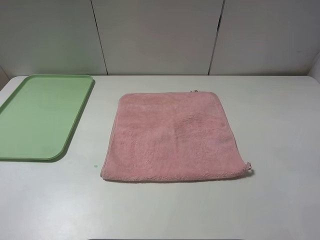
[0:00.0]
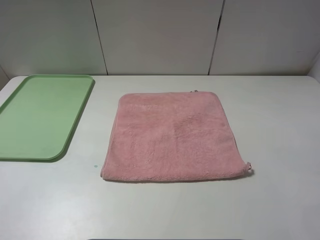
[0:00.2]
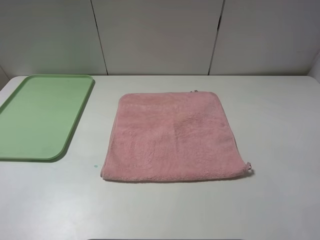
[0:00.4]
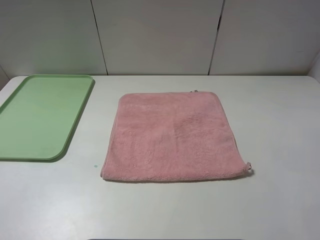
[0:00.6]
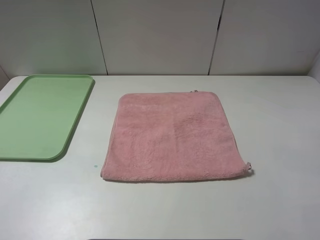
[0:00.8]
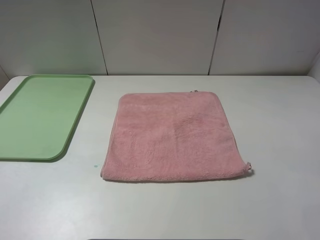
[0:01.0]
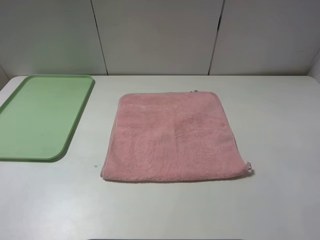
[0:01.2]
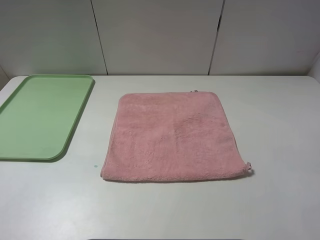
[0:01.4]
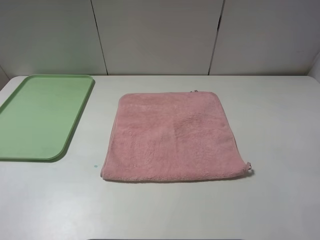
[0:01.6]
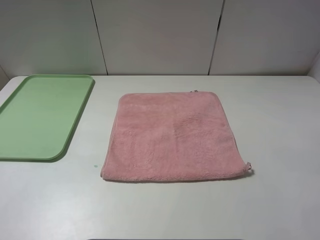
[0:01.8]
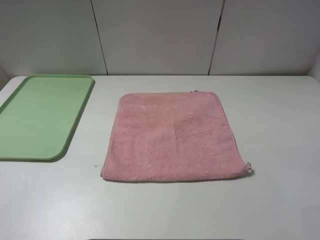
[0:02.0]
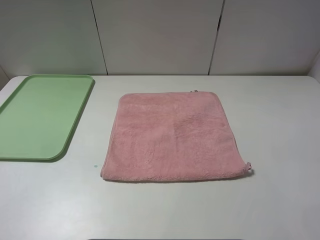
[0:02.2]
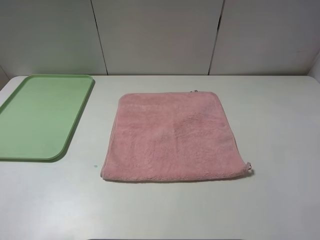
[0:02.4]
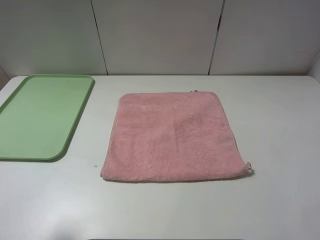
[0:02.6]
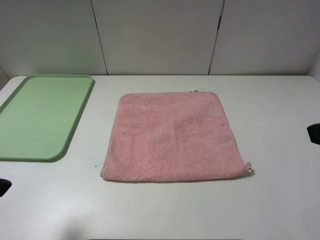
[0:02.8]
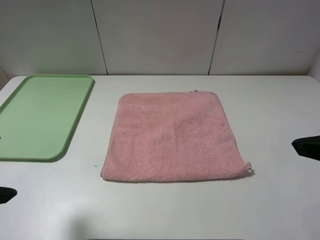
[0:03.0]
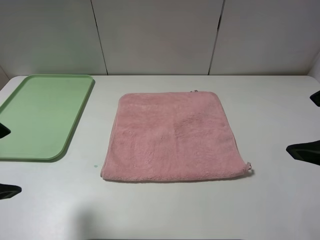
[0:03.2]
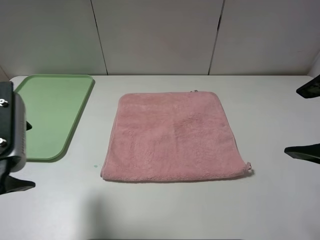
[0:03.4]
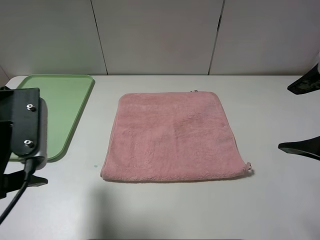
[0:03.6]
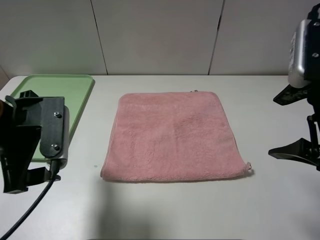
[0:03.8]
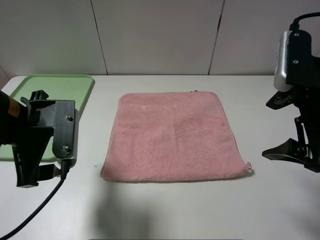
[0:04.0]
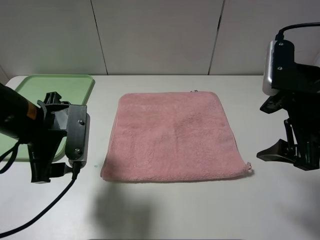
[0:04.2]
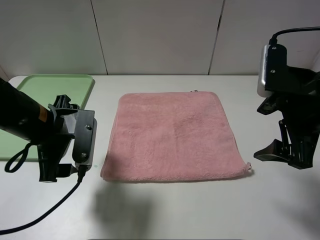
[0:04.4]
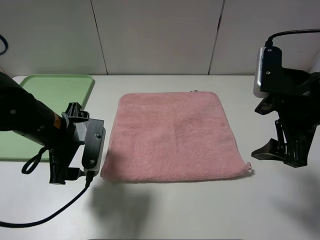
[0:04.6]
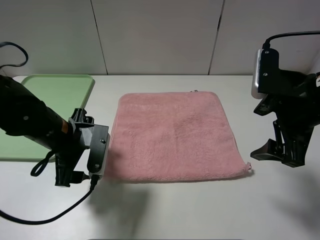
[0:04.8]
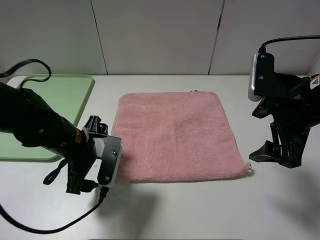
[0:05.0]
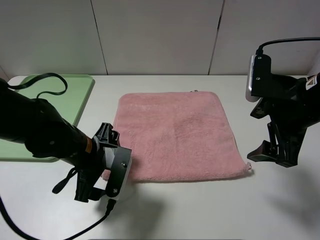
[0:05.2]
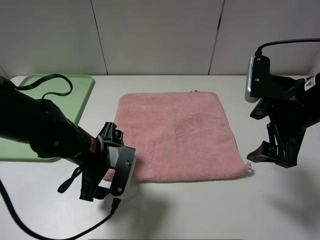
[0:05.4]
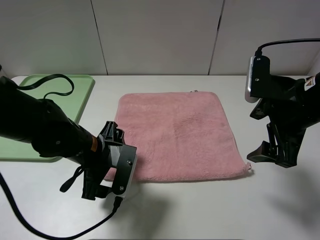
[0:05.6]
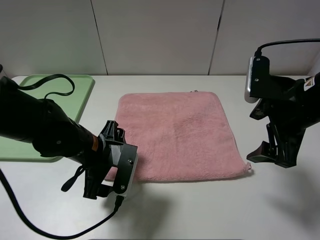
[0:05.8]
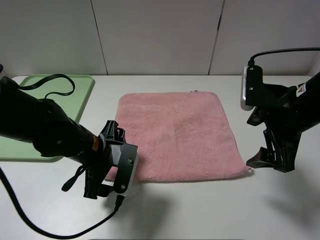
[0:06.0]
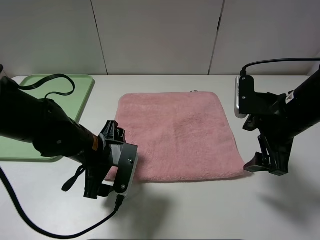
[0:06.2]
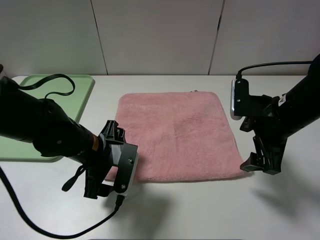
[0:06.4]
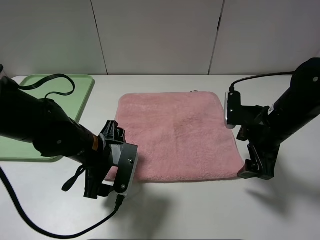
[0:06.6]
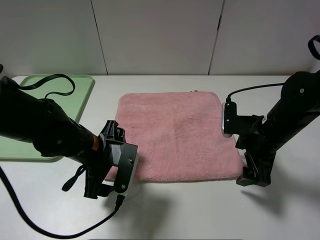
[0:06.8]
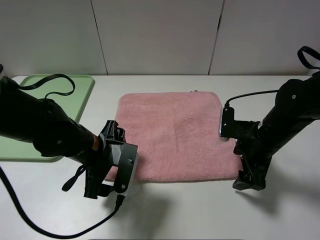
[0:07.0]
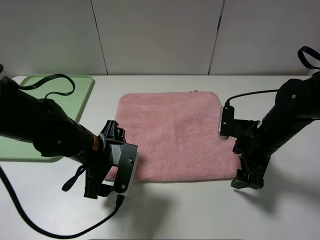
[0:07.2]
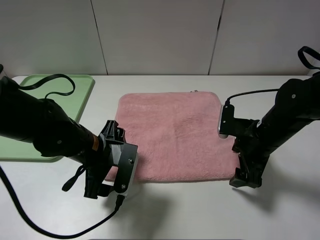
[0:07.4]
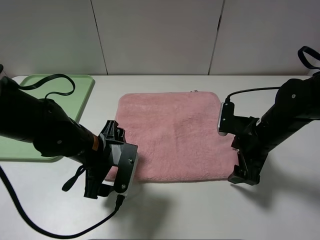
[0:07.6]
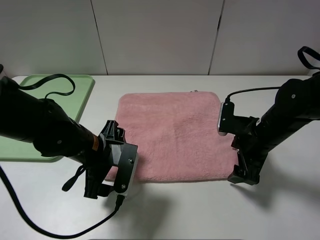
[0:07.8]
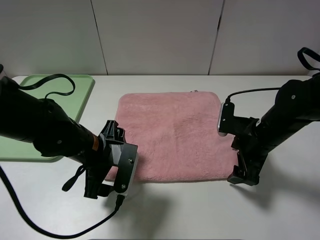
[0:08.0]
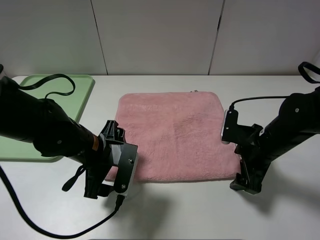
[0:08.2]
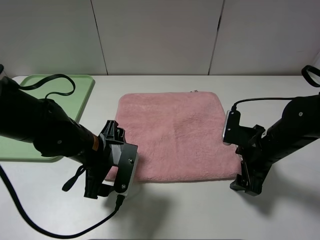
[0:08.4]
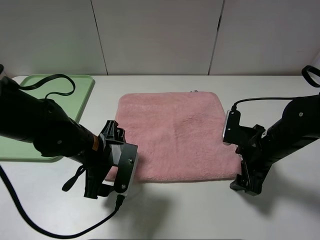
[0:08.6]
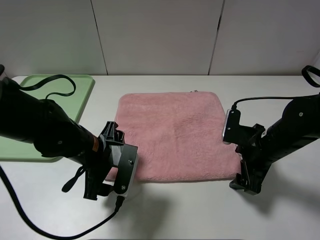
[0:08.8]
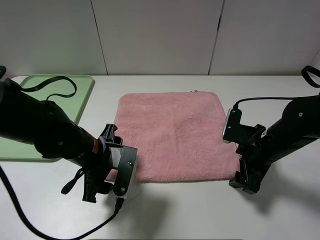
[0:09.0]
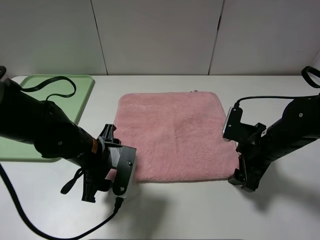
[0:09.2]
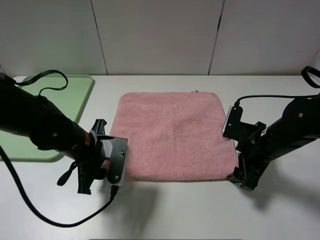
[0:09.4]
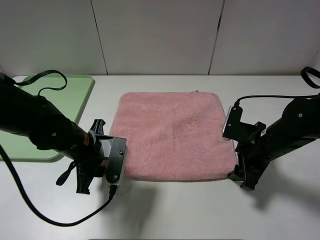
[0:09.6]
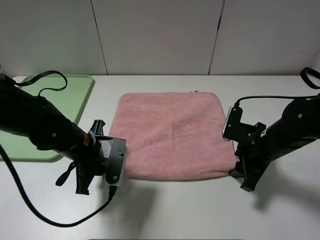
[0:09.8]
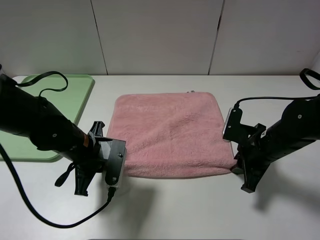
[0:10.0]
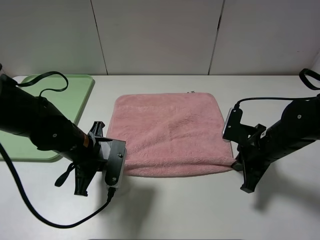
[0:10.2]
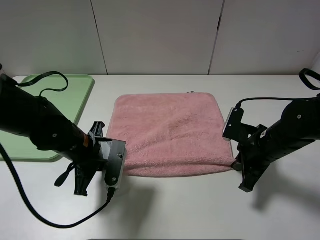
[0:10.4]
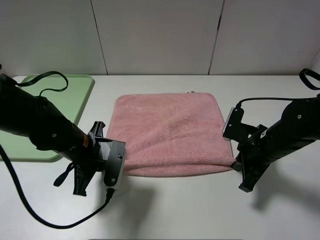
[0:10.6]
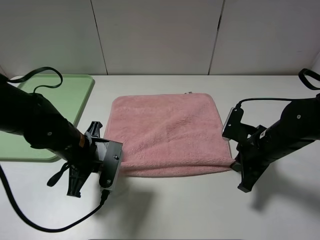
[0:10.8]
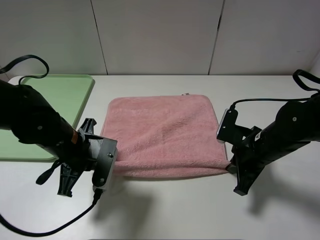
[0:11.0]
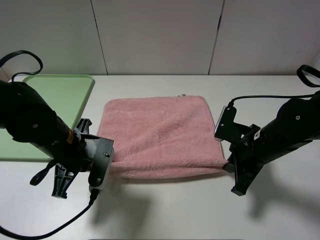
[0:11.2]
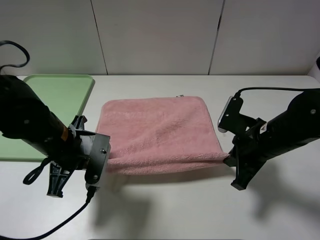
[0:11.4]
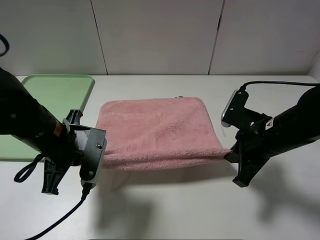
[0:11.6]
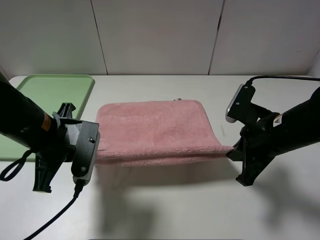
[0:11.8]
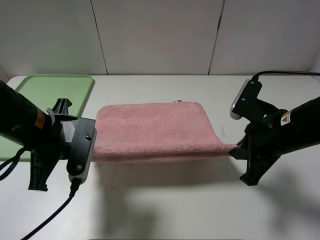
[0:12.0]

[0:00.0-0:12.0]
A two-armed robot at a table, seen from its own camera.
0:00.0 to 0:01.6: Neither gripper changes place.
0:01.6 to 0:03.0: The two grippers go about 10 cm forward.
0:03.0 to 0:04.4: The right gripper goes roughly 10 cm forward and downward, while the left gripper heads downward, forward and to the right, covering about 15 cm.
0:04.4 to 0:06.0: The left gripper moves downward and to the right, some 10 cm.
0:06.0 to 0:07.6: The right gripper heads downward, covering about 10 cm.
0:07.6 to 0:09.0: The grippers stay close to where they were, moving slightly.
0:09.0 to 0:10.4: The left gripper closes, while the right gripper closes.
0:10.4 to 0:12.0: The two grippers go some 10 cm upward.

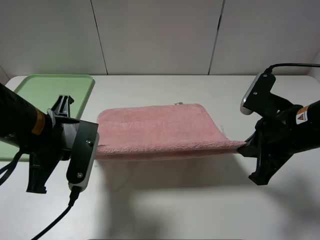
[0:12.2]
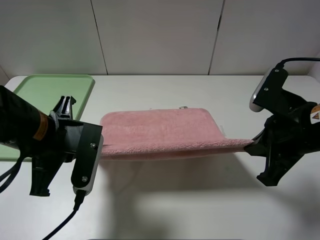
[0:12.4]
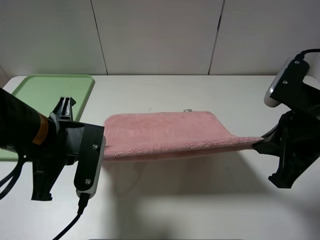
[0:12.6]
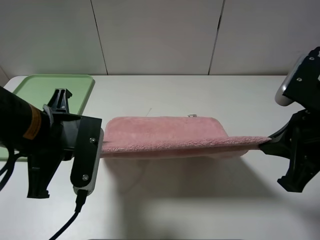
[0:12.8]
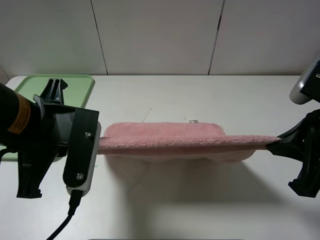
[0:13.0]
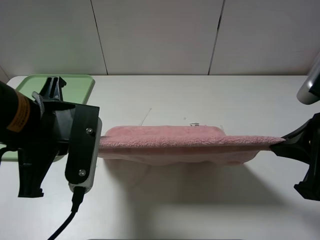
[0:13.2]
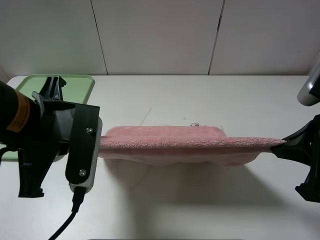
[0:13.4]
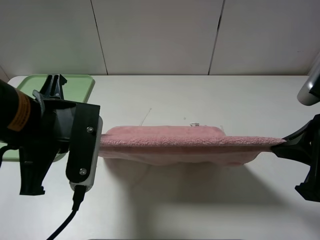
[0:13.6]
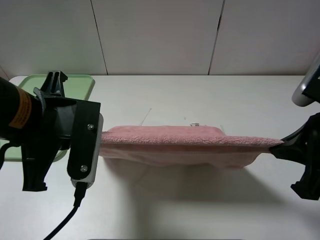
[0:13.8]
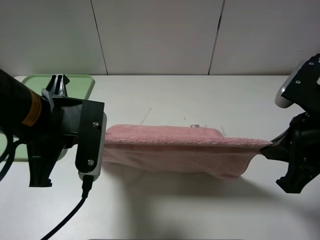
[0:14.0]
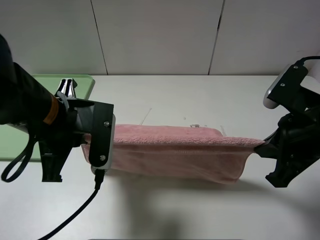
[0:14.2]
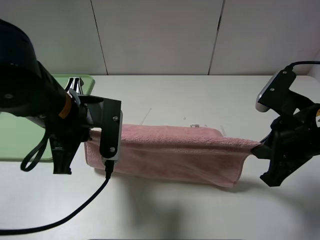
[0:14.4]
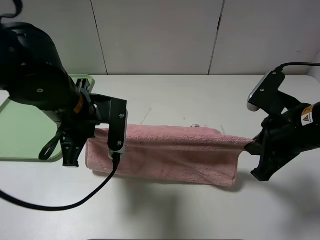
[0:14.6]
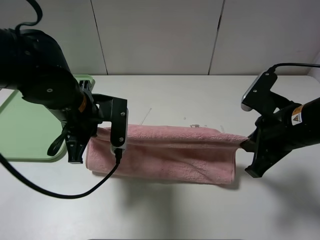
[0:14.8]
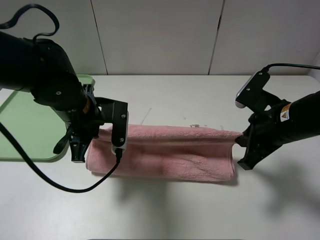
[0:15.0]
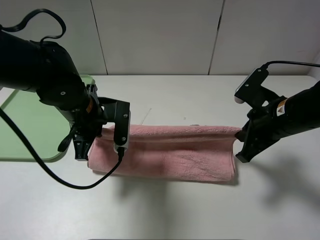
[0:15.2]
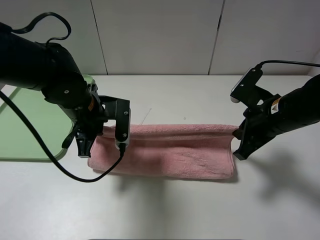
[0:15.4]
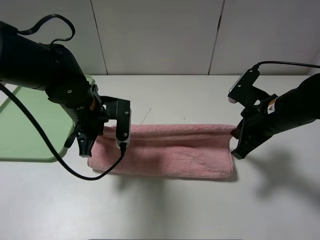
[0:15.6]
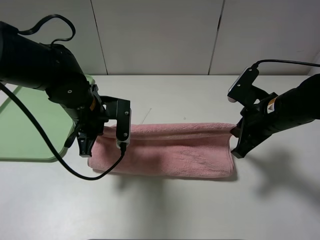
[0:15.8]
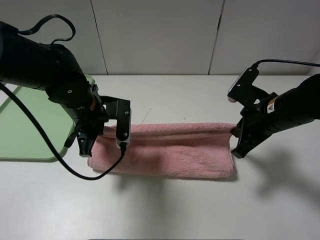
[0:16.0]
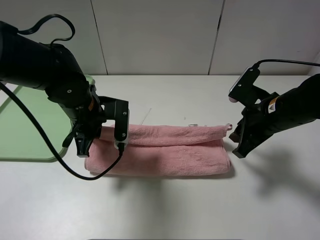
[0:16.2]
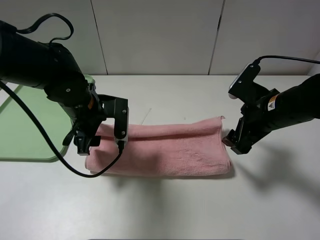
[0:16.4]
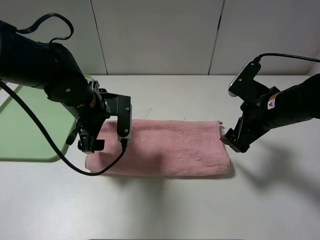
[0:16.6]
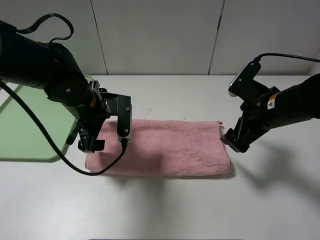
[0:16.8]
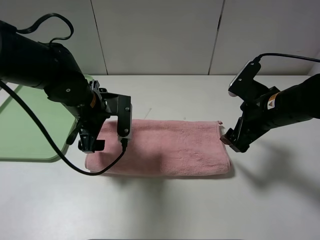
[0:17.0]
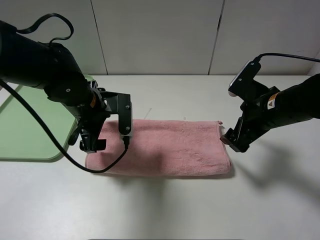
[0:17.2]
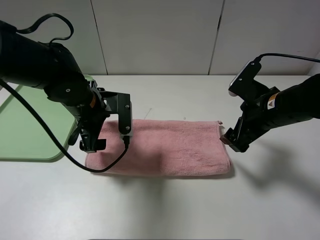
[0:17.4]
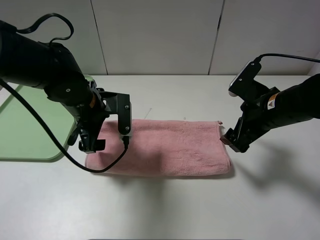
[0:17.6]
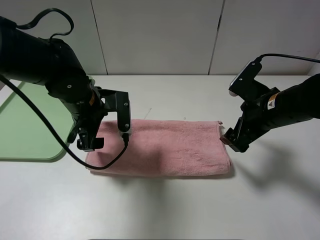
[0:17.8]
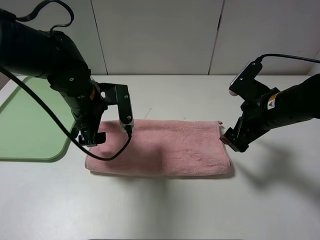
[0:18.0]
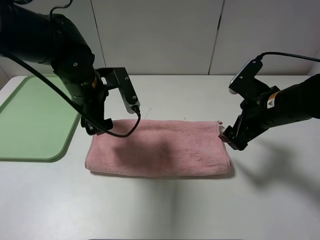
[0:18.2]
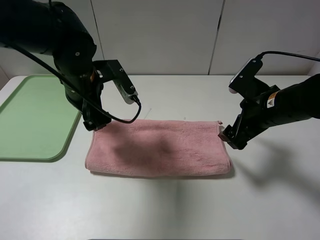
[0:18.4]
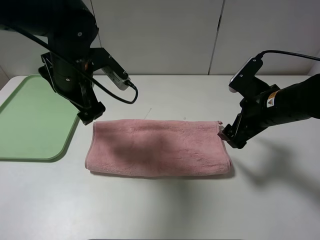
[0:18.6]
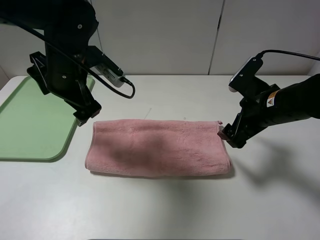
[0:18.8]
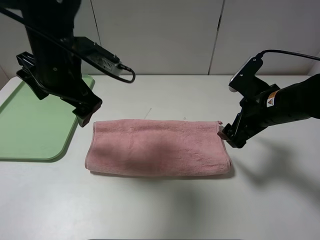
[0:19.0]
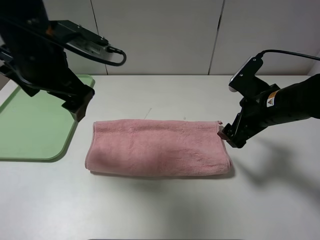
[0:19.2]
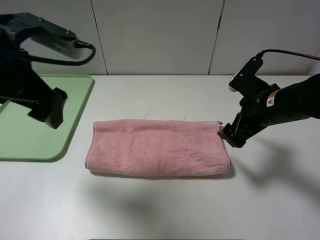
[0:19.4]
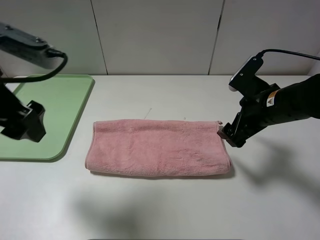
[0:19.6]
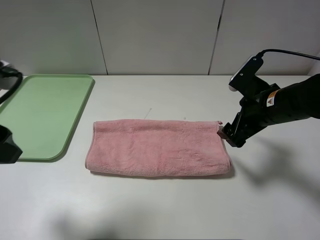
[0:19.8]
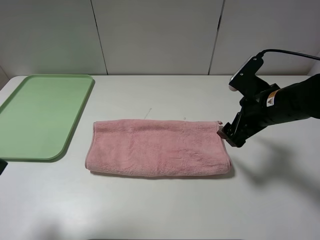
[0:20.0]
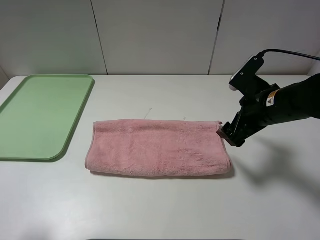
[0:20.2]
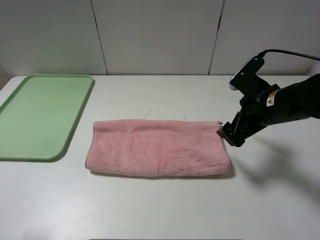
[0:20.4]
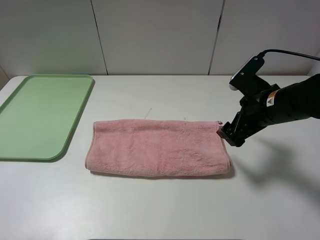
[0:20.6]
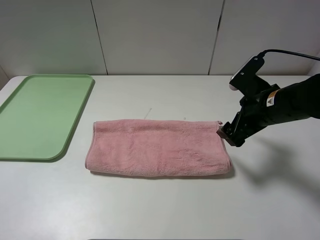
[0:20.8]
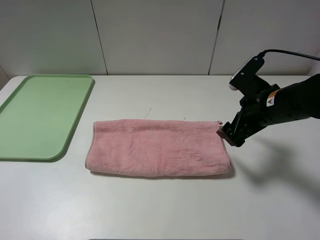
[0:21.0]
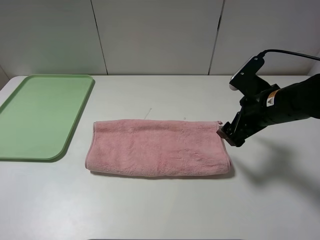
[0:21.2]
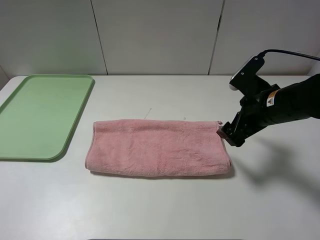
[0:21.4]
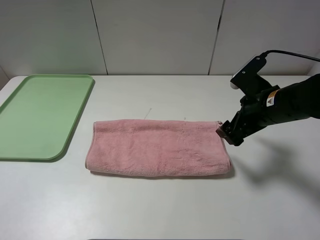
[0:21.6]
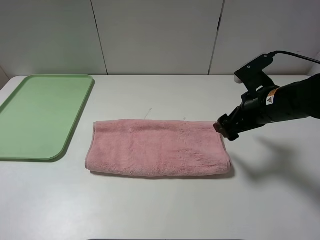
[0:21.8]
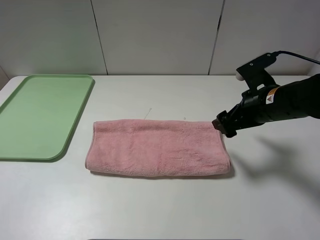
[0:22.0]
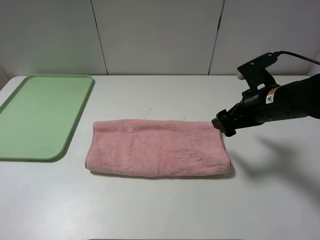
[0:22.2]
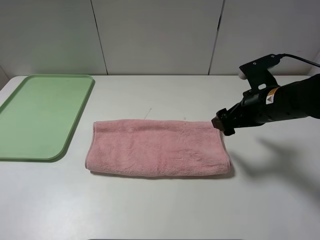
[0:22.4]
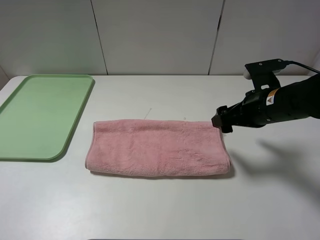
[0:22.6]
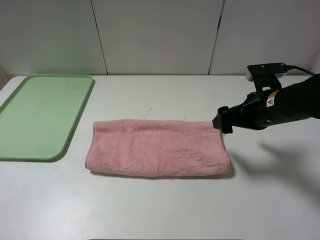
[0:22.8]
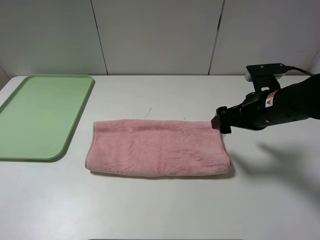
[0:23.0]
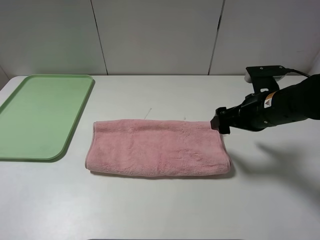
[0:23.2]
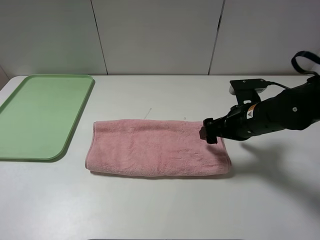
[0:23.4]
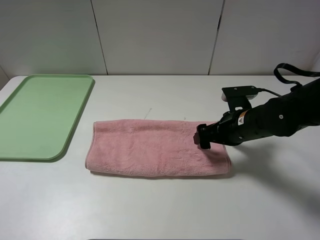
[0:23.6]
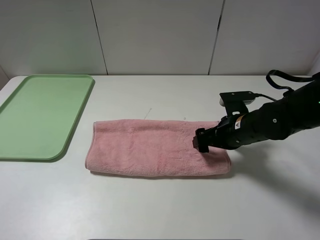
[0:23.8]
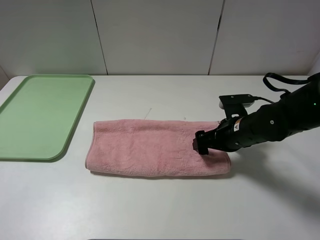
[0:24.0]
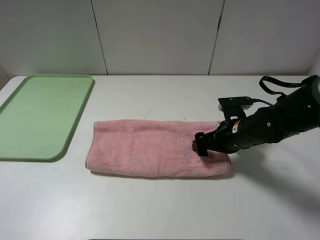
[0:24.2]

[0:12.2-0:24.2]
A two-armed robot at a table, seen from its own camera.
Step, 0:12.2 to 0:17.6: Fold the pink towel upwards.
0:12.2 to 0:13.8: The right gripper moves approximately 5 cm, while the left gripper goes about 5 cm upward.
0:13.8 to 0:15.2: The grippers both shift forward and downward by some 15 cm.
0:15.2 to 0:16.6: The left gripper opens its fingers. Meanwhile the right gripper opens its fingers.
0:18.2 to 0:19.8: The left gripper heads backward, to the left and upward, covering approximately 25 cm.
0:19.8 to 0:21.2: The left gripper goes roughly 15 cm backward and to the left.
0:22.6 to 0:24.2: The right gripper moves downward, about 10 cm.
